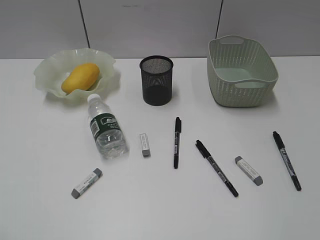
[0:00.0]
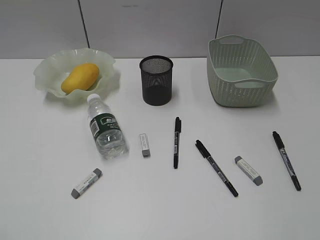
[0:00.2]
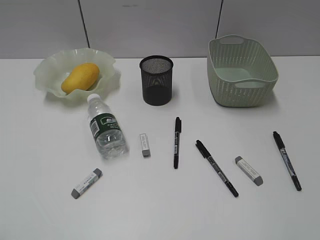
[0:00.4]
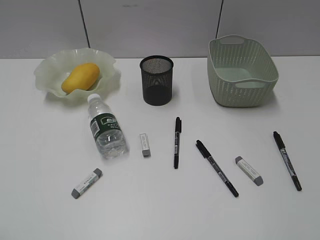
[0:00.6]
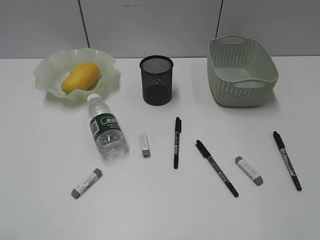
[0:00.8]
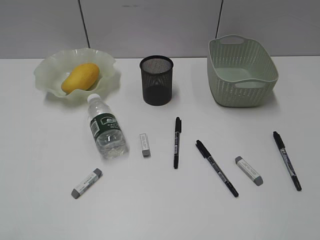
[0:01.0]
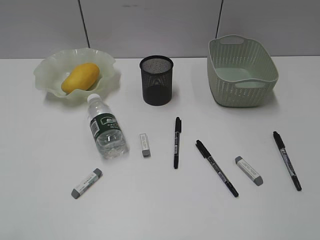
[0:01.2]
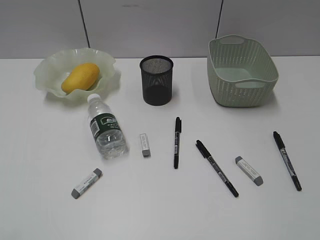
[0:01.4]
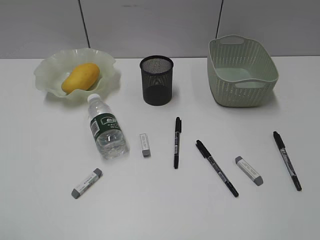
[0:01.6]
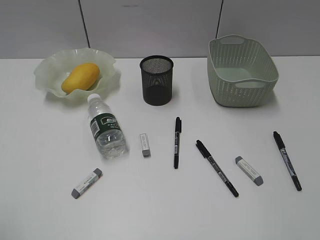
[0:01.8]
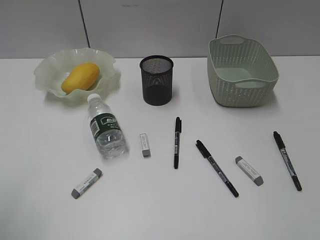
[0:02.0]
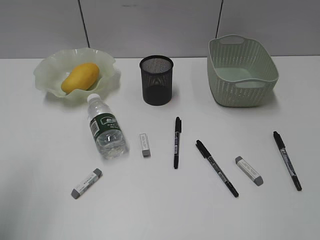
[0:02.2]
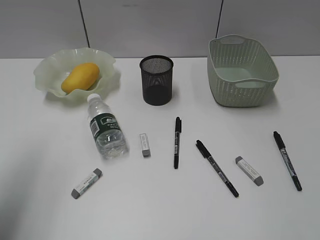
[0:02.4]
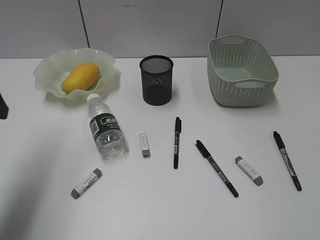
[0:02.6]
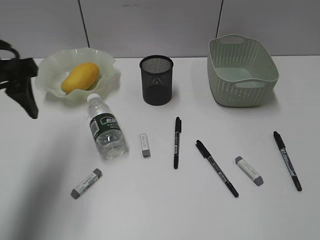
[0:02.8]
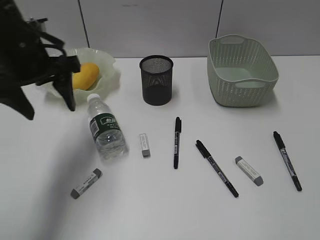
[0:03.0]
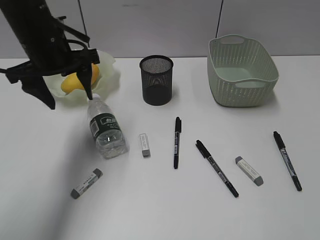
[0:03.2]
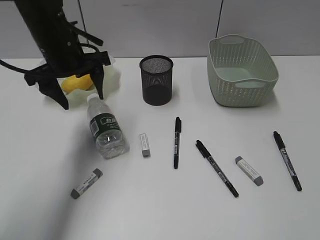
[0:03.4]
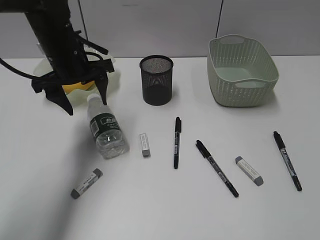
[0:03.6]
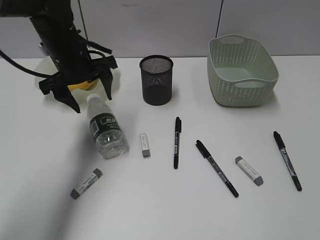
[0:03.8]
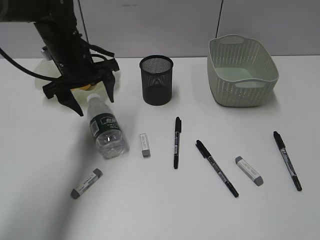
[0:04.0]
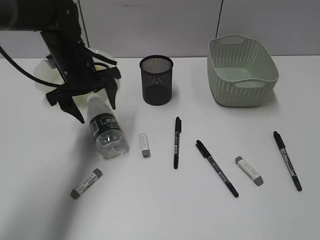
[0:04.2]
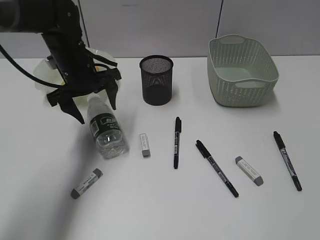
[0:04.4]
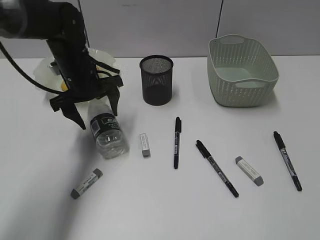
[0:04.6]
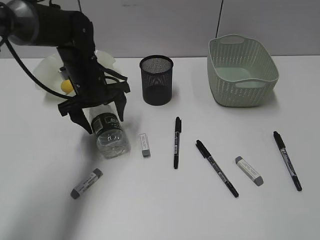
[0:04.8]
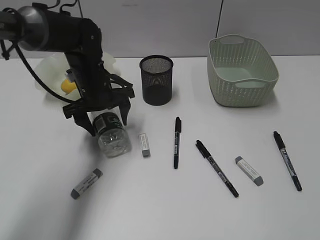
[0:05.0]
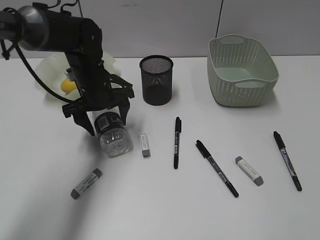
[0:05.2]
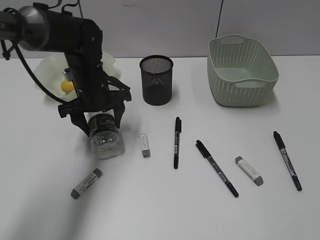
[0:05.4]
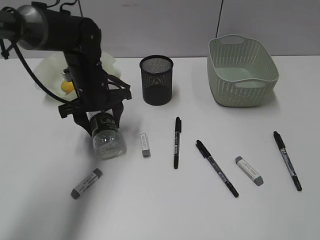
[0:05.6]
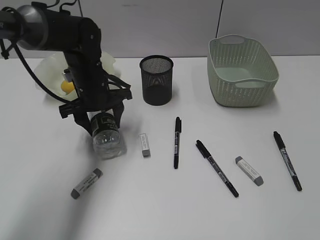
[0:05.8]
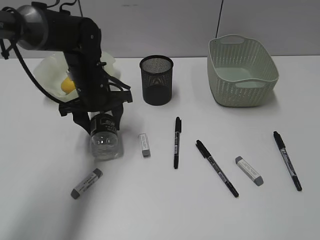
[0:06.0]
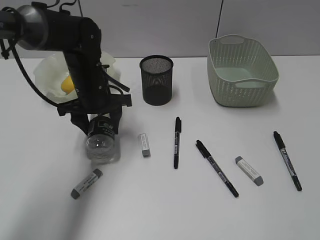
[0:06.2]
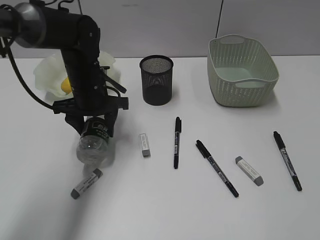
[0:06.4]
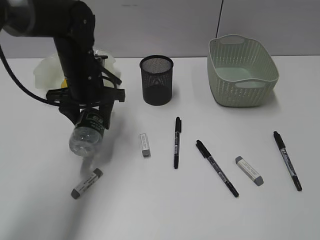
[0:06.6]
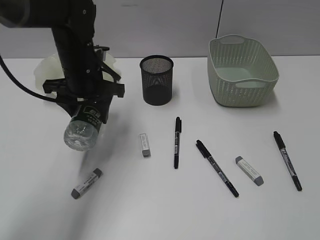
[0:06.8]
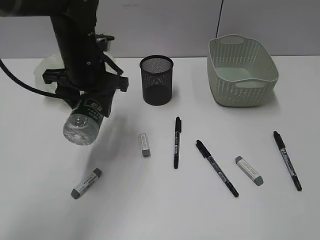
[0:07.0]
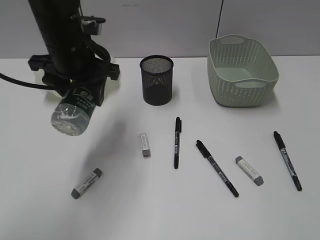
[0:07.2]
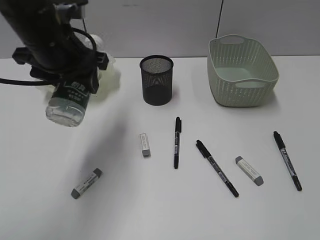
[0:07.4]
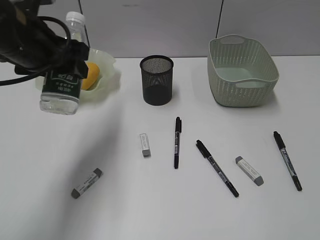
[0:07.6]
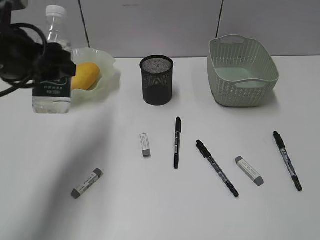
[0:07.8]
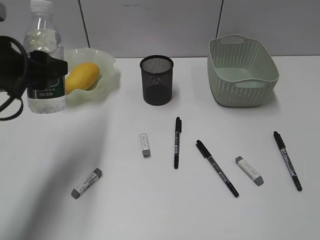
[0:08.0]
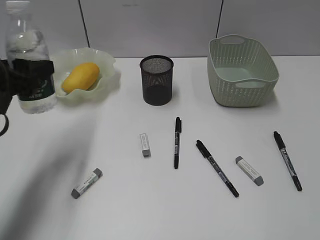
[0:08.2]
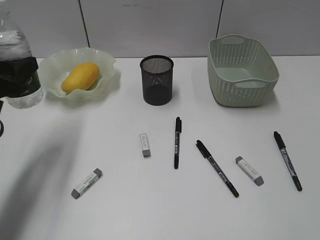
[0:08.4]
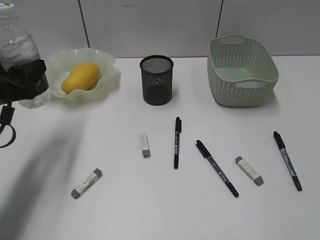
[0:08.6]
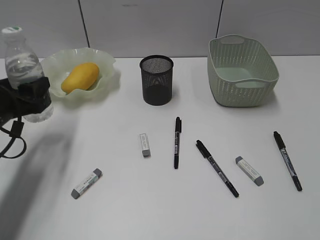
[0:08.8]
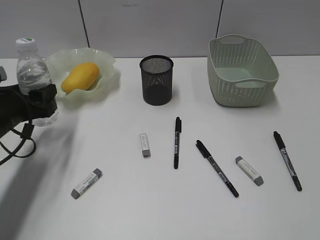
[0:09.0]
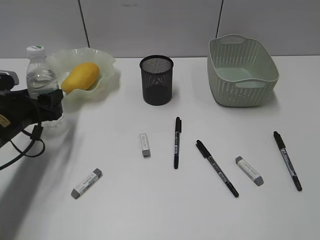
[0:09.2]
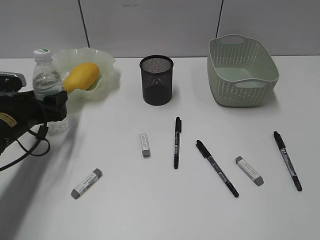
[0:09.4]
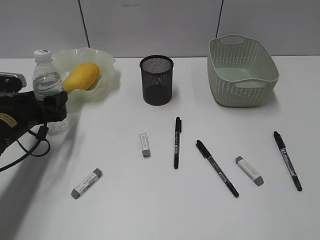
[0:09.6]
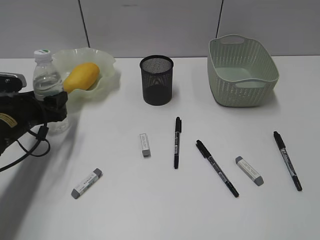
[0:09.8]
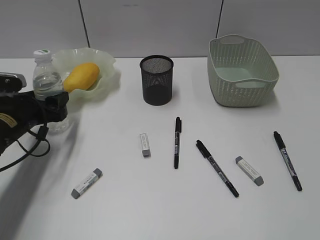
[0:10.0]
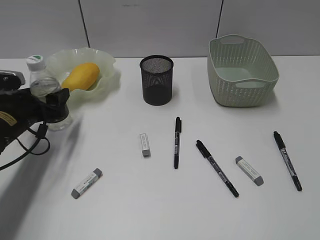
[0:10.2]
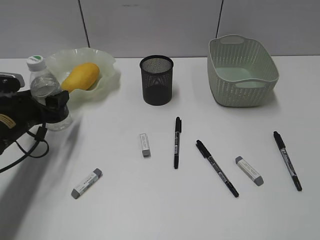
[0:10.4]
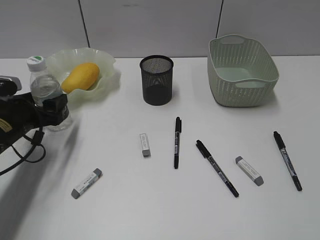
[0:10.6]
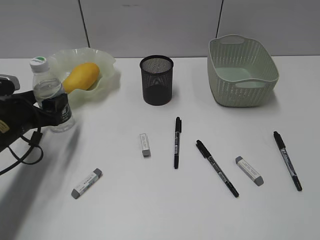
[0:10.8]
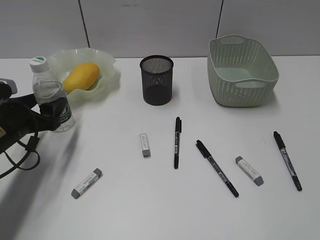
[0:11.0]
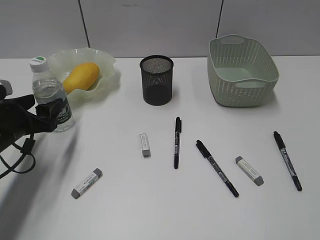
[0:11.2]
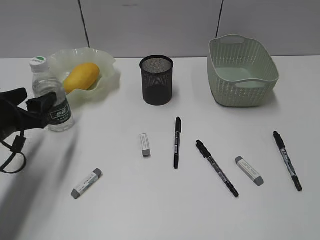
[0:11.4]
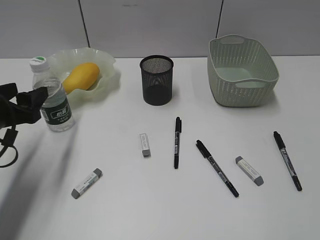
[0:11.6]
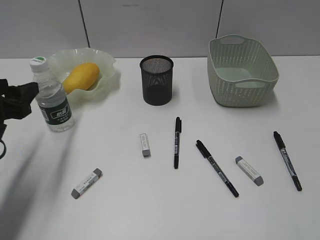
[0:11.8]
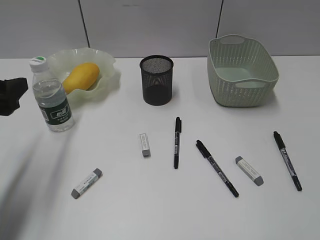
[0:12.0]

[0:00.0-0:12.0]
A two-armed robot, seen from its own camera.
Step, 0:00.0 to 0:05.8: Grasp the bottle with left gripper.
Step, 0:06.0 to 0:11.2: Stand the bottle with left gripper.
0:01.6 to 0:03.0: The left gripper travels forward and to the right by some 35 cm.
0:03.0 to 0:04.4: The left gripper shifts about 15 cm downward and forward.
0:04.4 to 0:06.0: The grippers make only small movements.
0:06.0 to 0:07.6: The left gripper heads upward and backward, covering roughly 15 cm.
0:07.6 to 0:09.0: The left gripper is displaced downward and to the left by some 20 cm.
0:09.0 to 0:10.4: The grippers make only small movements.
0:10.4 to 0:12.0: The left gripper is displaced upward and backward by some 15 cm.

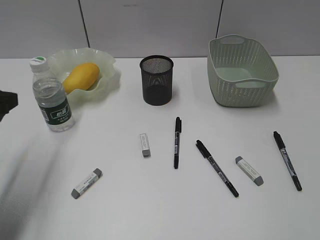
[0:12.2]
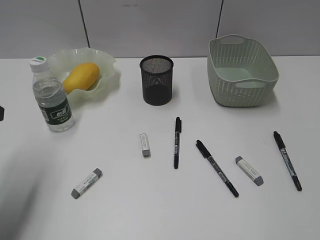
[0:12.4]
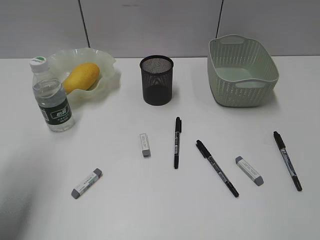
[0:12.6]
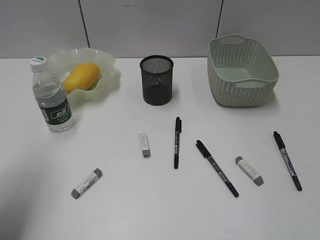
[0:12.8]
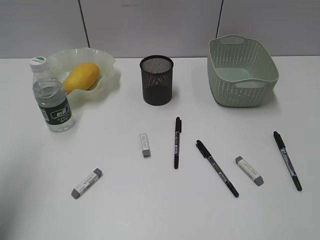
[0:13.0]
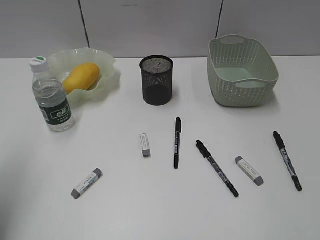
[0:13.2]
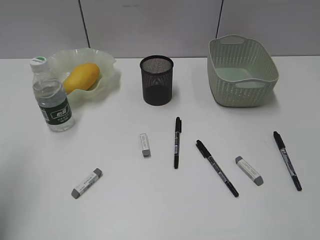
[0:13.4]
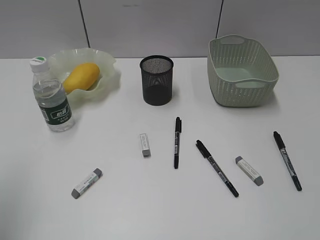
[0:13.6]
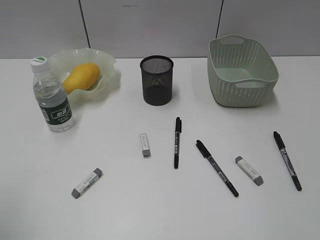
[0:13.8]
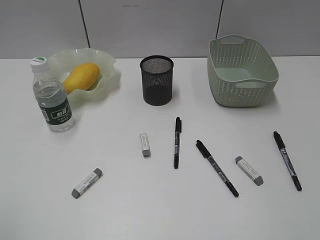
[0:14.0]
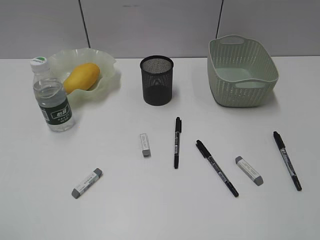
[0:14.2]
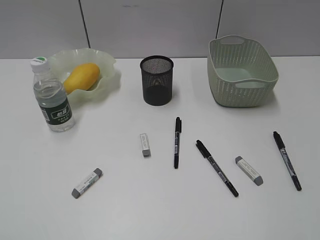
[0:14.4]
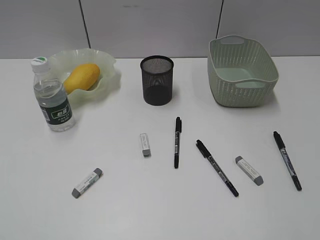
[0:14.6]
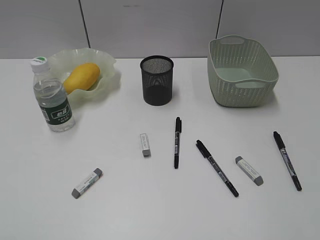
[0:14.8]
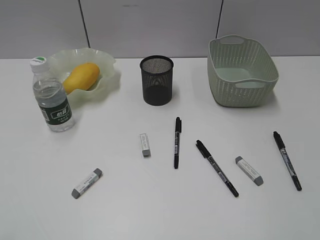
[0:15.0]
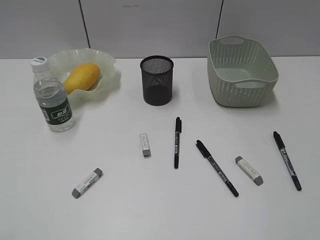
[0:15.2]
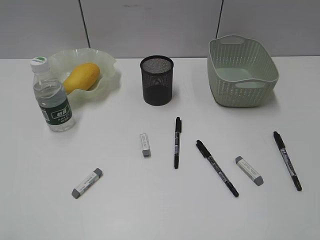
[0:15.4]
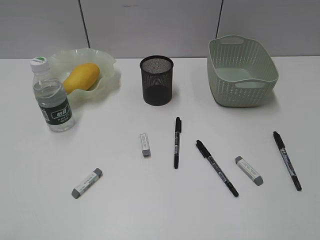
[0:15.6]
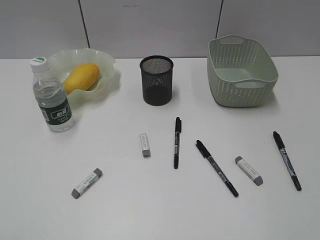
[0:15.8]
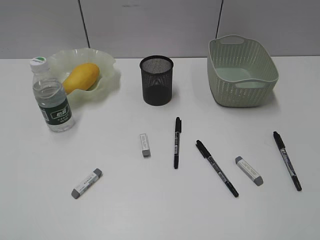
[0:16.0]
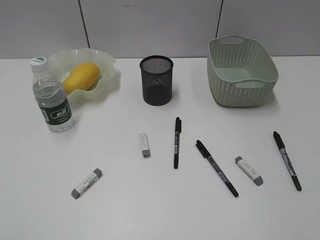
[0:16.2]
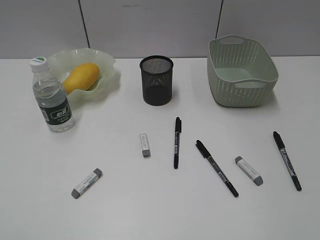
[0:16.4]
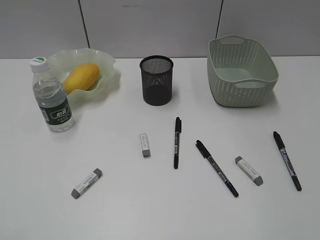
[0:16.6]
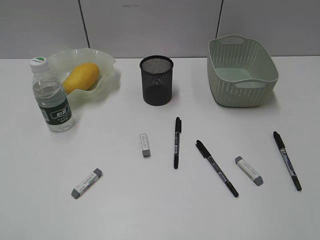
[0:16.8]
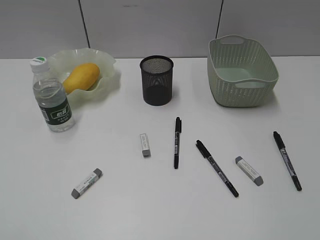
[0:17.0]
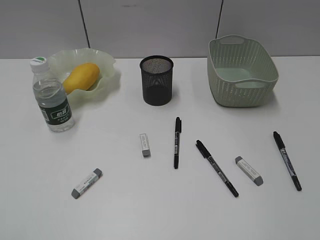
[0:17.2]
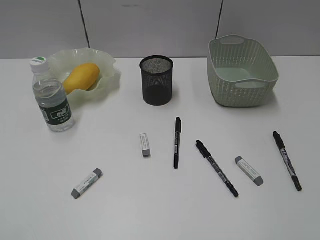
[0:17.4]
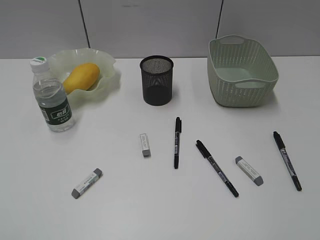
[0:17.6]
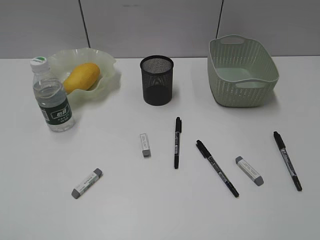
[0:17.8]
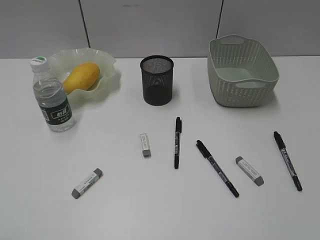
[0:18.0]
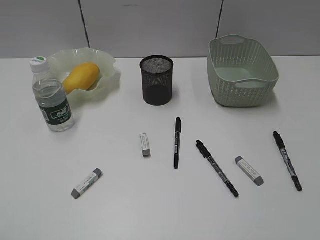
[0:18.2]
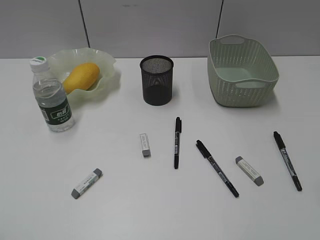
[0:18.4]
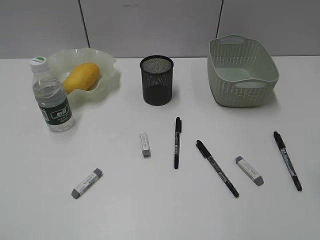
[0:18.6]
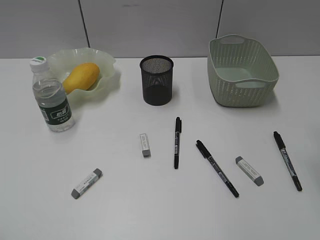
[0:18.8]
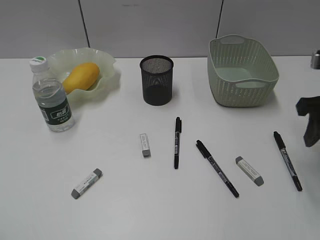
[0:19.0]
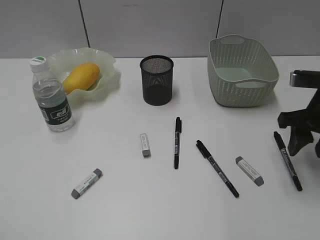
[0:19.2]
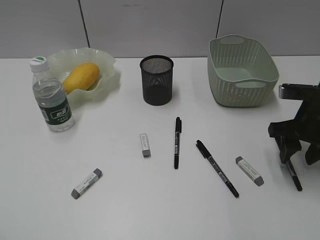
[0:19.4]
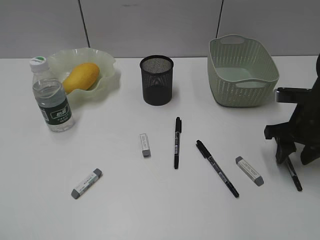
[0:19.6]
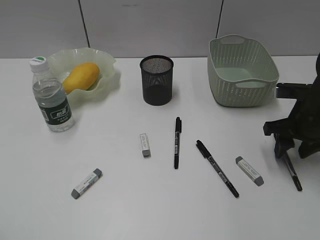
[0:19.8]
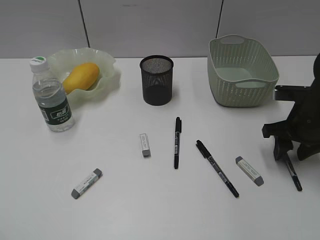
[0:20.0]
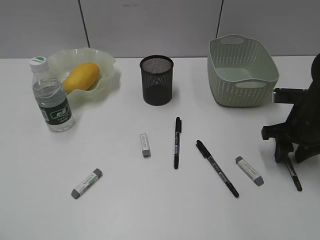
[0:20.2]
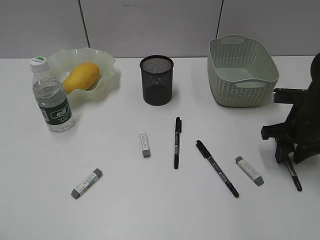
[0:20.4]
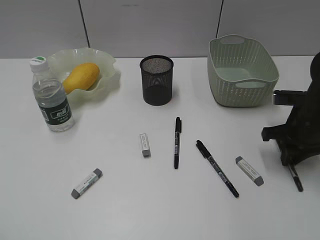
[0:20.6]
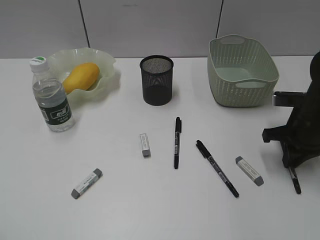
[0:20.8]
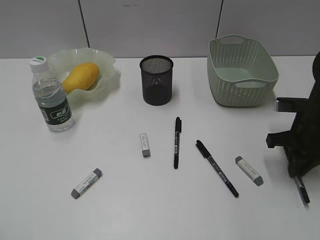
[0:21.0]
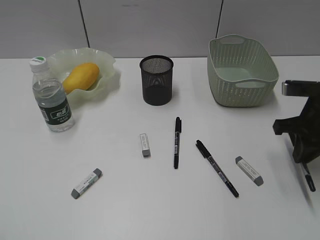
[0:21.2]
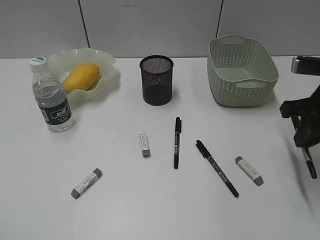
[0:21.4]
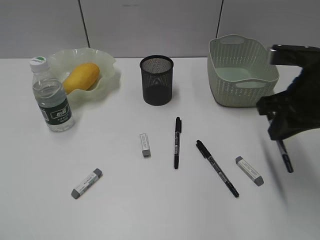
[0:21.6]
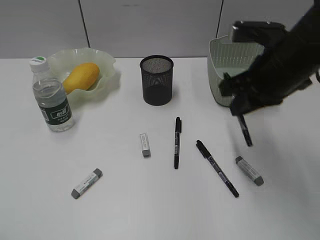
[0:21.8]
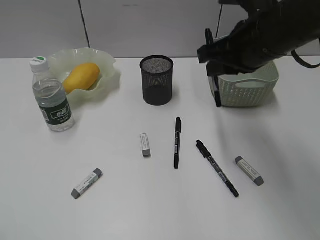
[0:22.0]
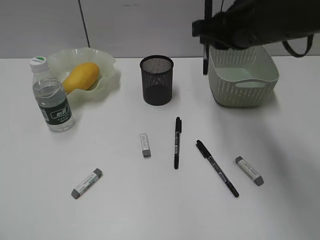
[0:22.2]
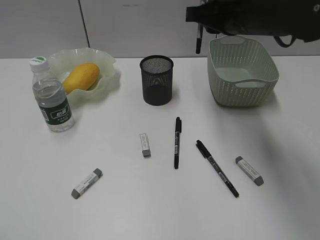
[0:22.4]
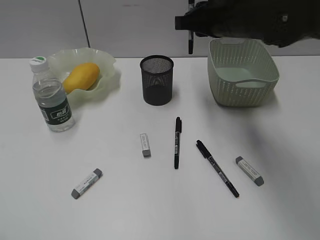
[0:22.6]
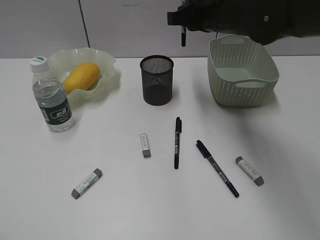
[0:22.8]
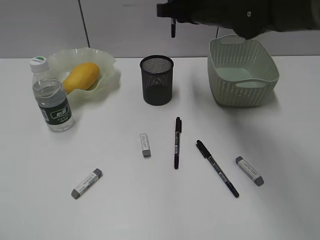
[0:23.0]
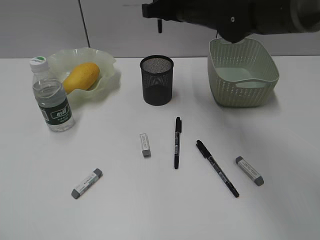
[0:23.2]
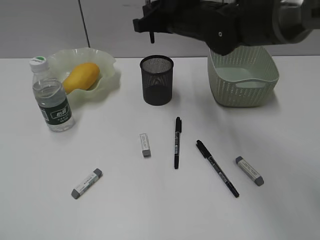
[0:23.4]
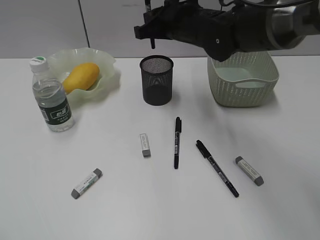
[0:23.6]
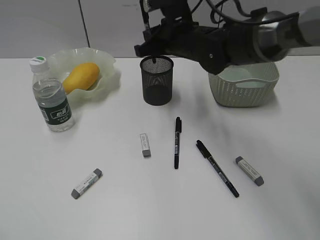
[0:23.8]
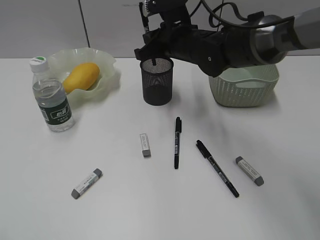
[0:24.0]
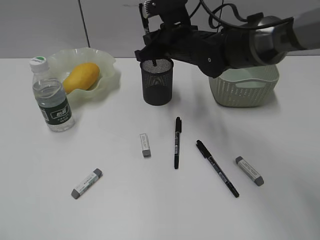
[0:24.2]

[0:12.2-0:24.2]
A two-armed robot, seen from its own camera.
Step, 0:12.2 to 0:20.8: Grasp the black pen with right gripper.
0:12.2 to 0:13.8: The left gripper heads backward and upward, covering some 15 cm.
0:18.2 to 0:19.8: The right gripper travels forward and downward by some 25 cm.
0:19.8 to 0:21.2: The right gripper closes its fingers.
0:21.2 to 0:22.6: The right gripper moves to the left, upward and forward, about 20 cm.
0:22.6 to 0:24.2: The right gripper moves downward, to the left and forward, some 10 cm.
